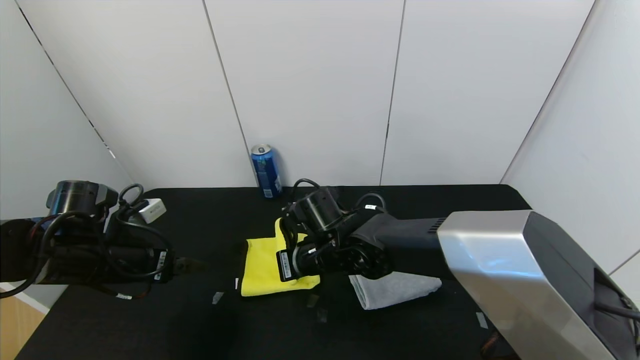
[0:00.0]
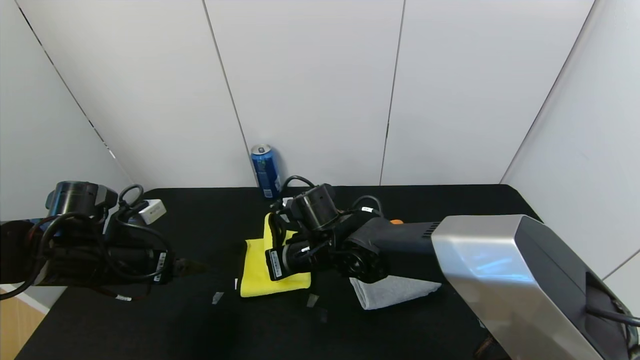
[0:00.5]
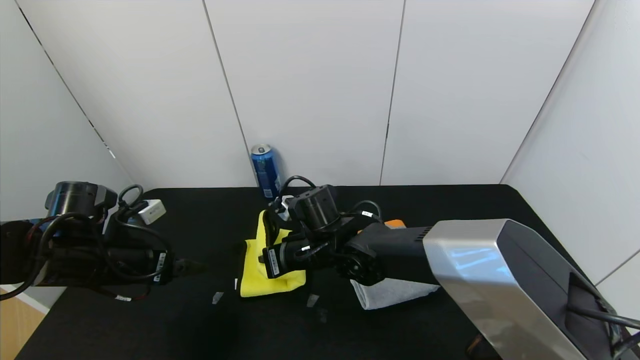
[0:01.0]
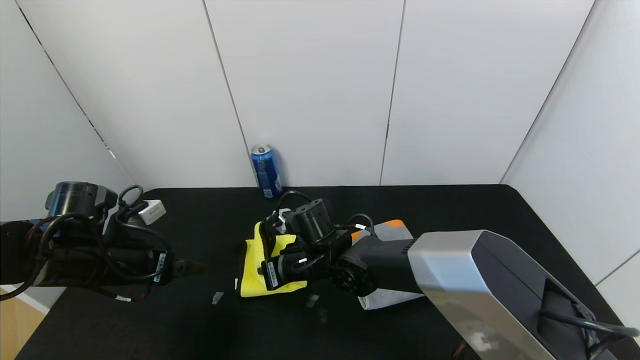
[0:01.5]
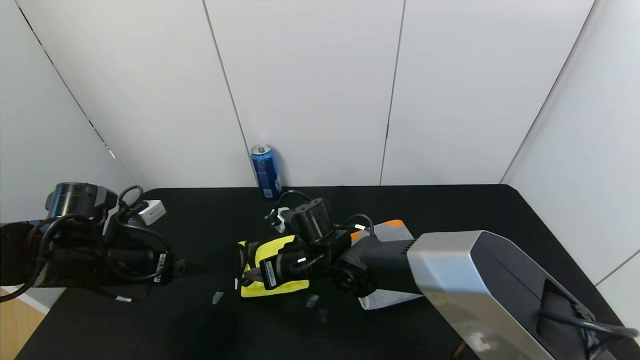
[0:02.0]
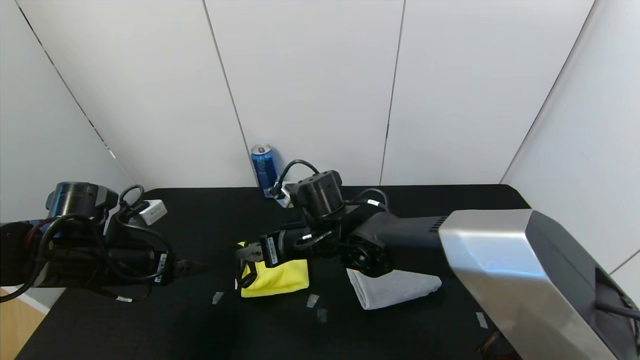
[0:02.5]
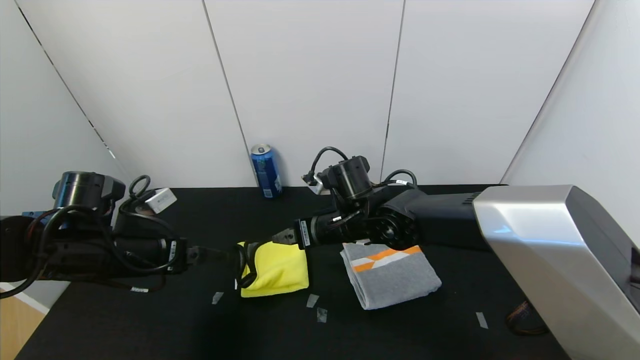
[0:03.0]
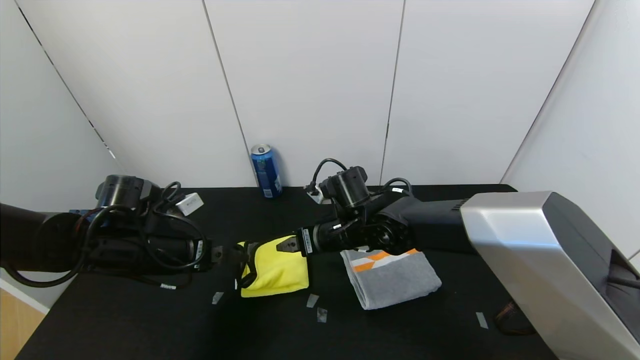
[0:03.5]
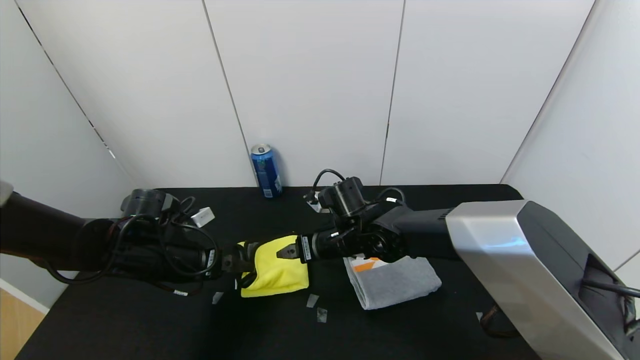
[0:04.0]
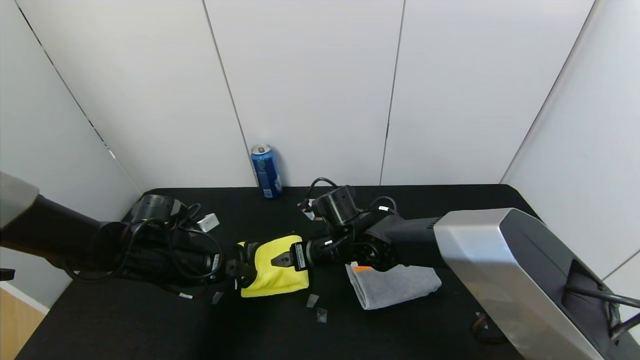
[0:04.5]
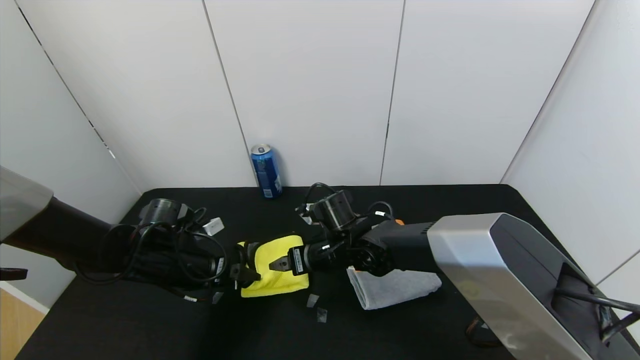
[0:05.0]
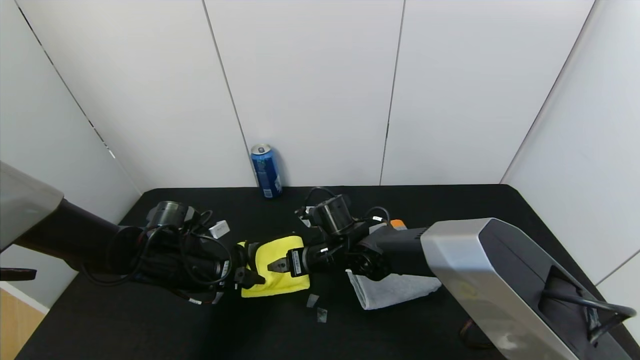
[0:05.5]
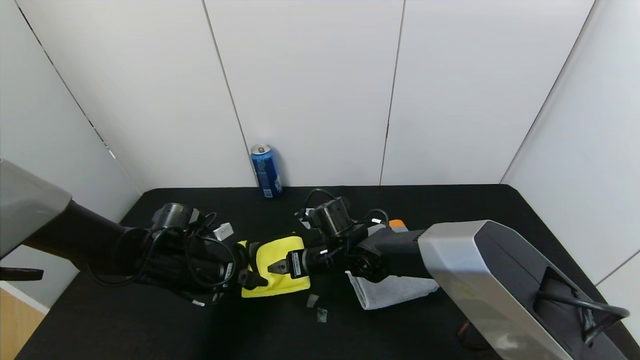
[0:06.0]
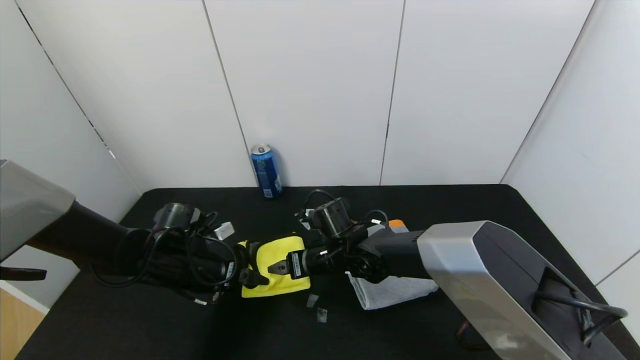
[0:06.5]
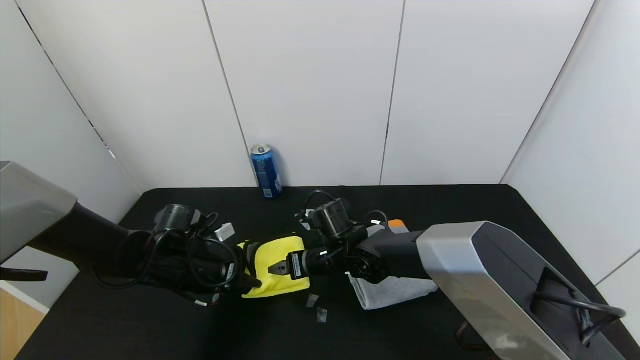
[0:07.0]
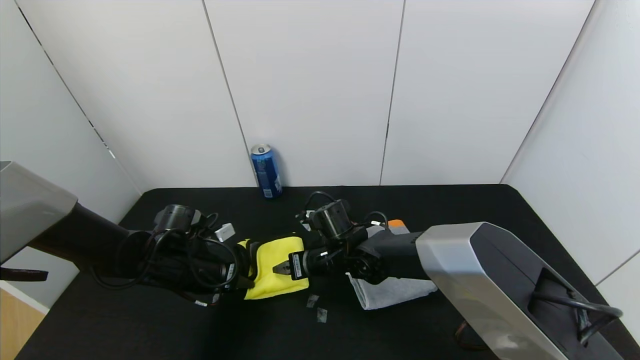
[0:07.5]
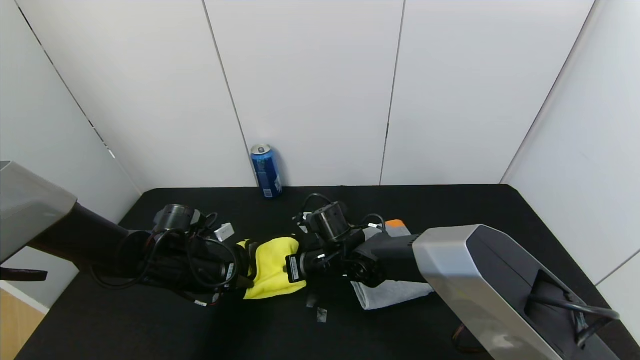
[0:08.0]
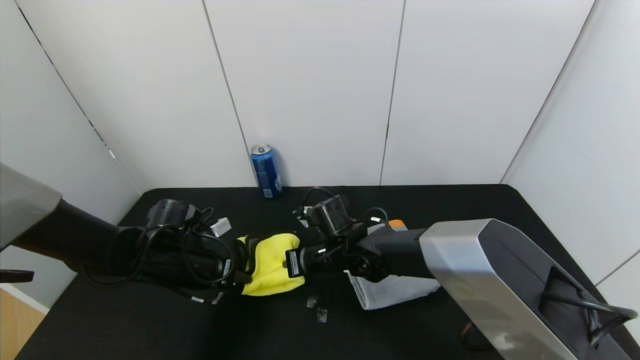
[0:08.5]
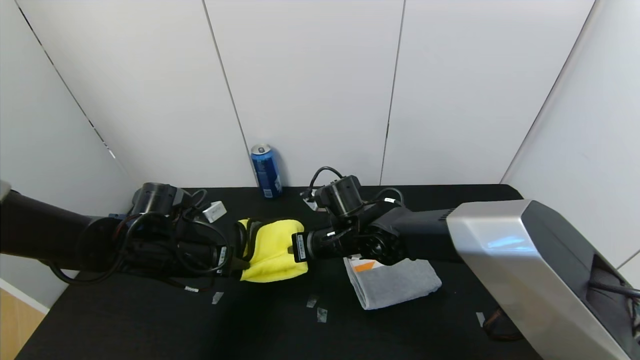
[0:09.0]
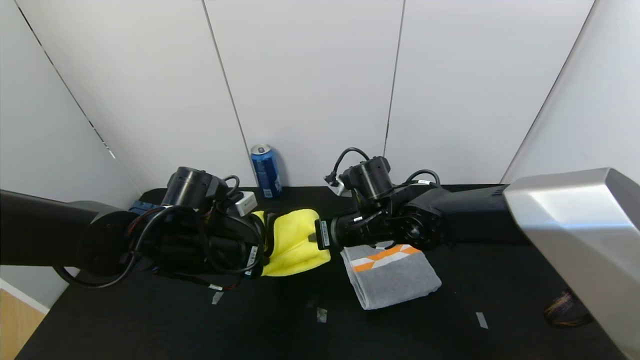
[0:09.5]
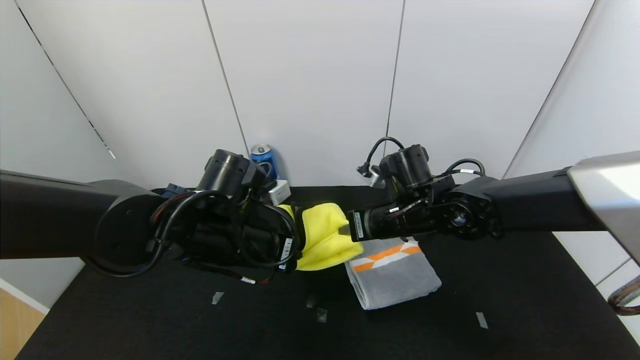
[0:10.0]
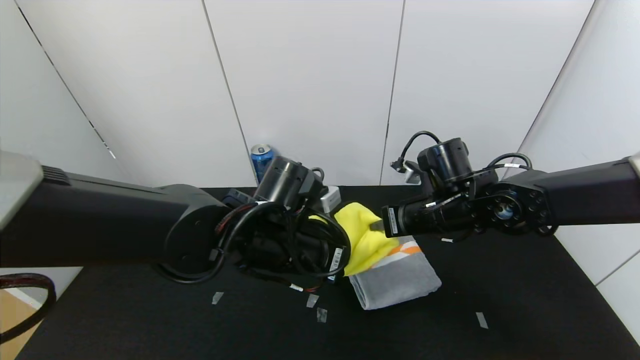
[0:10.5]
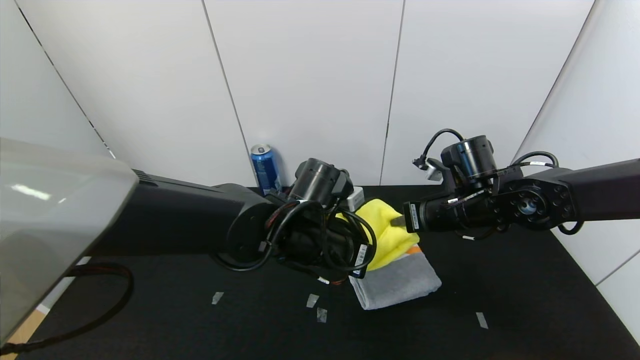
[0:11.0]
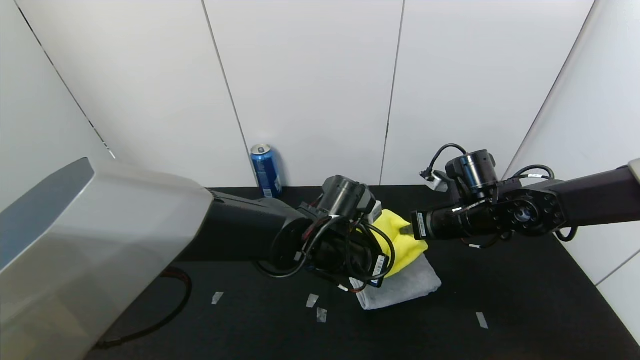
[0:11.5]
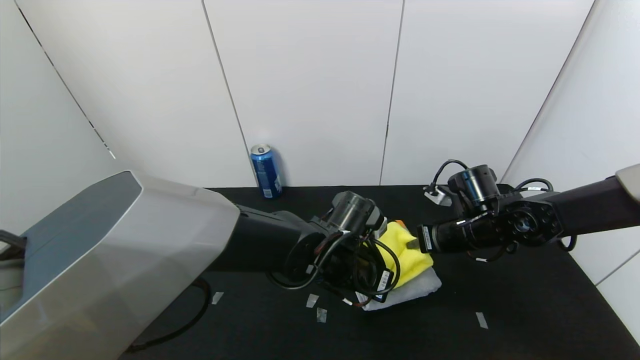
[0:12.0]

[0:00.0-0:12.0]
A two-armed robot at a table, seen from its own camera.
Task of the whole recording: Use the gripper to fold the yellow towel and grey towel in half twice,then put the yellow towel on the grey towel.
Step, 0:00.0 to 0:02.0: Fold the yellow towel from right to left with right gripper.
0:00.0 to 0:02.0: The right gripper opens up.
0:02.0 to 0:04.0: The left gripper shifts by approximately 5 cm; the right gripper is displaced to the right by some 5 cm, and opens.
0:04.0 to 0:06.0: The grippers stay close to where they were, moving slightly.
0:06.0 to 0:08.0: The right gripper closes. Meanwhile the left gripper closes.
0:08.0 to 0:10.0: The two grippers go roughly 15 cm to the right and upward.
0:10.0 to 0:12.0: The right gripper travels to the right by some 10 cm, while the left gripper moves to the right and downward, approximately 15 cm.

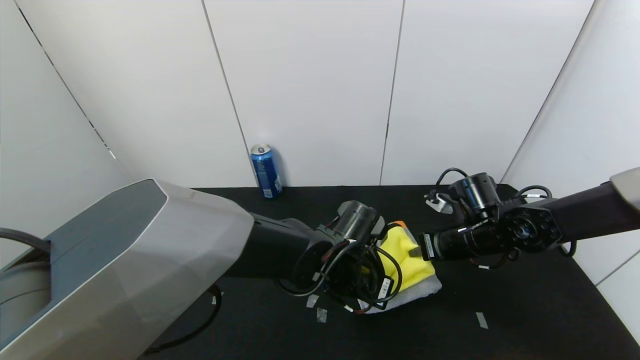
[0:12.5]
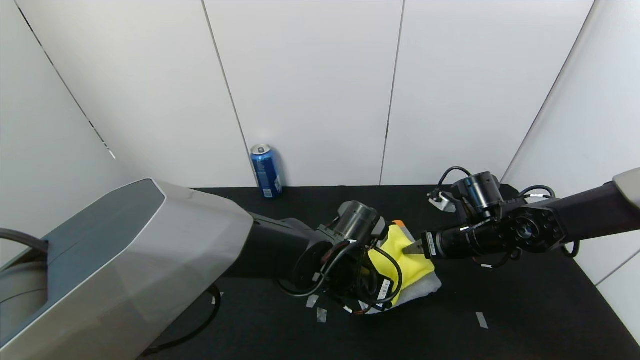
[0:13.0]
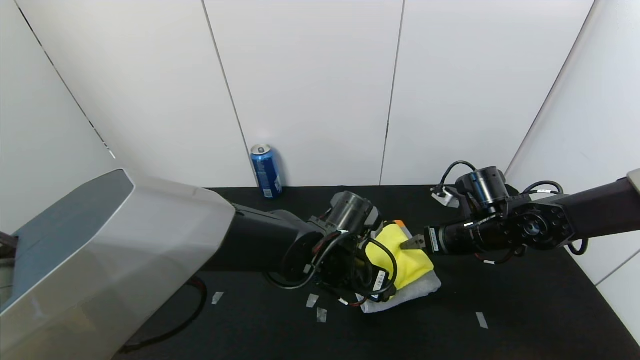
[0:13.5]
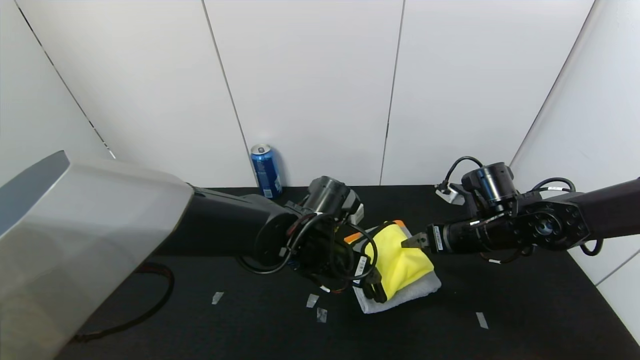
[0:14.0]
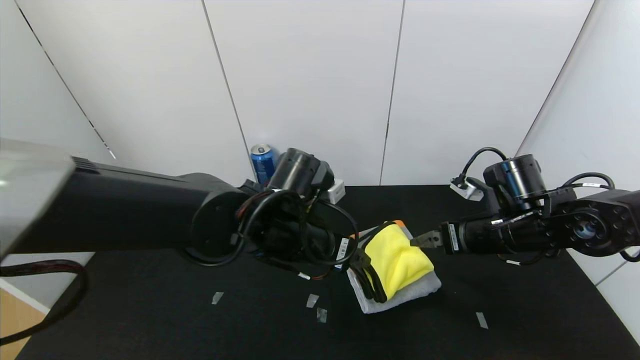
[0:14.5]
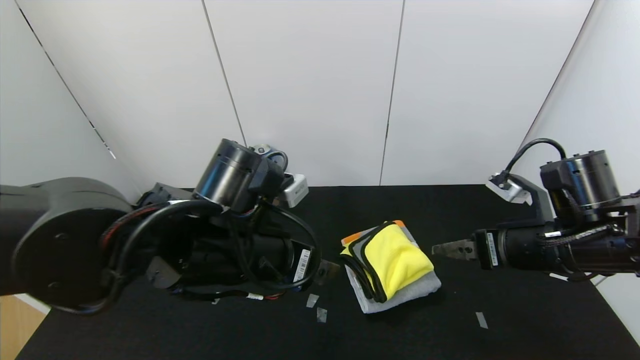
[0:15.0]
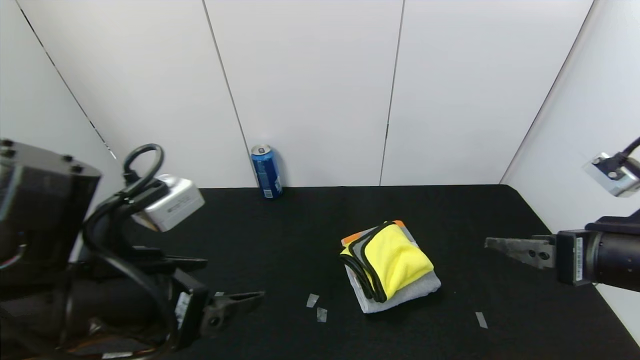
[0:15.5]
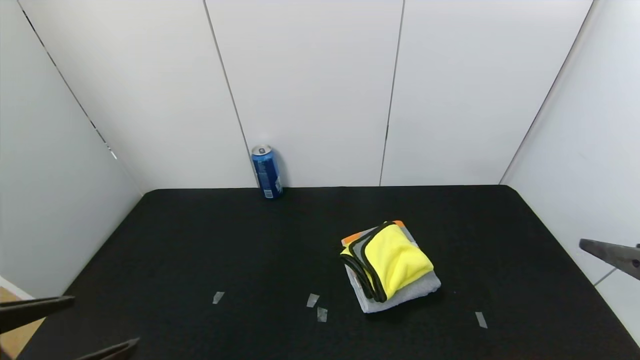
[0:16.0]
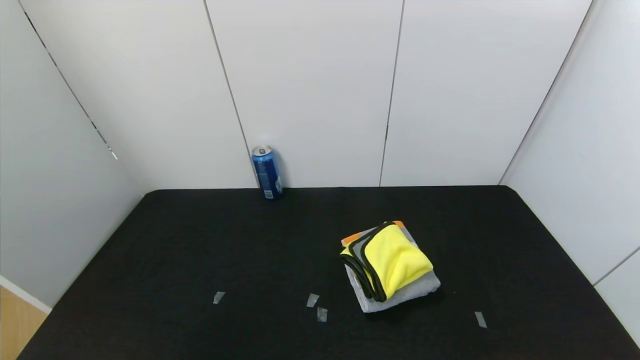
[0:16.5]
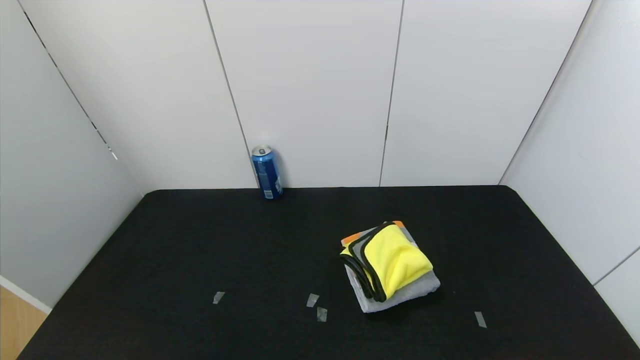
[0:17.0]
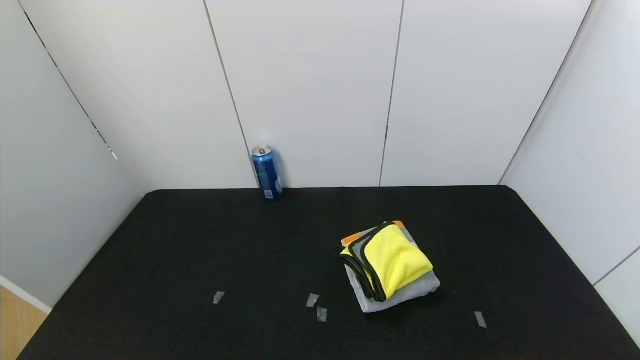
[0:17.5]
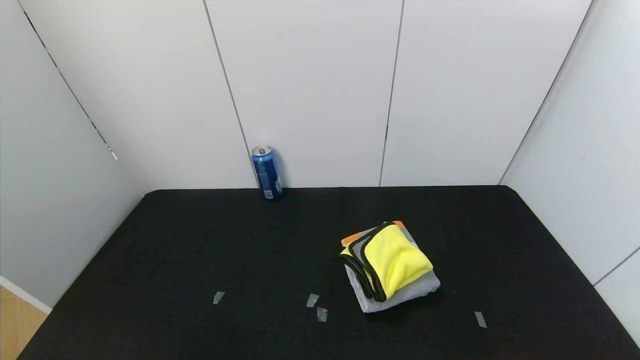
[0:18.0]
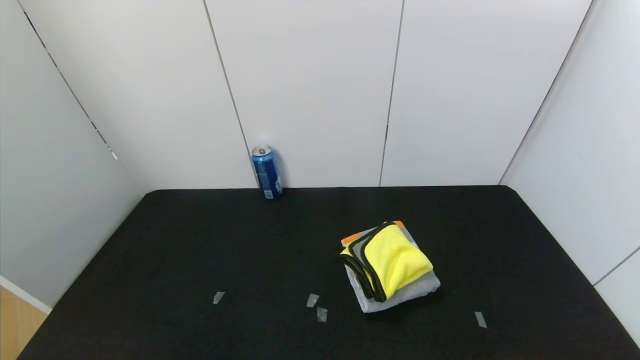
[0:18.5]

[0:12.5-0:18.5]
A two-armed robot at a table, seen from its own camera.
Task of the whole recording: Use the gripper to fold the yellow towel and grey towel in half twice,then put the yellow towel on the grey towel.
0:12.5 to 0:14.5: The left gripper shifts approximately 10 cm upward and to the left, and opens, while the right gripper shifts by about 5 cm, and opens.
0:14.5 to 0:16.5: The right gripper heads backward, covering some 30 cm. The left gripper moves backward and to the left, some 40 cm.
